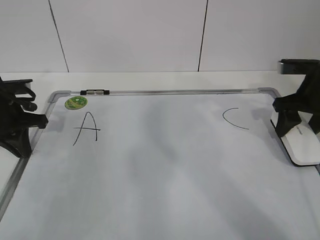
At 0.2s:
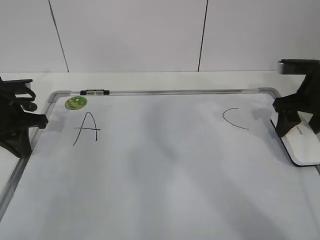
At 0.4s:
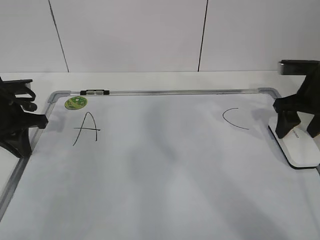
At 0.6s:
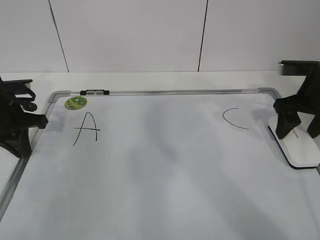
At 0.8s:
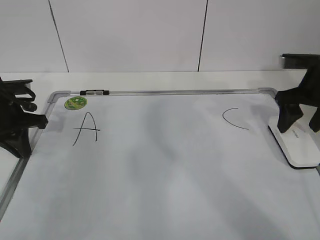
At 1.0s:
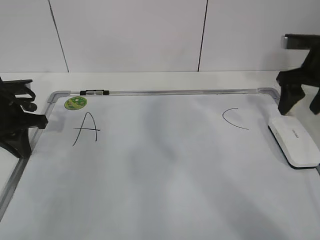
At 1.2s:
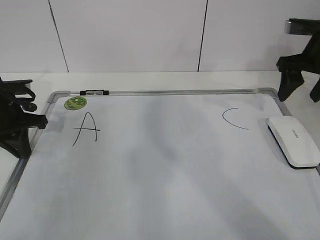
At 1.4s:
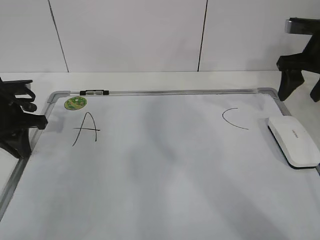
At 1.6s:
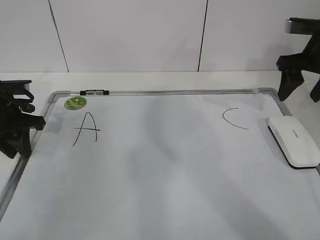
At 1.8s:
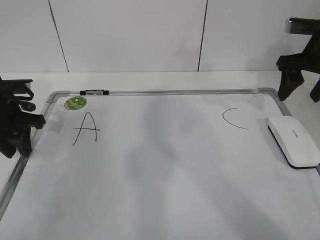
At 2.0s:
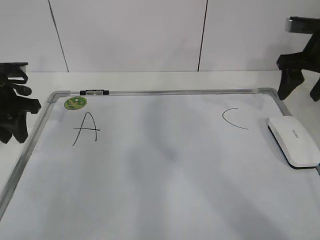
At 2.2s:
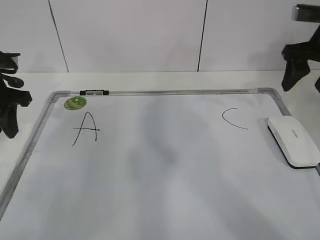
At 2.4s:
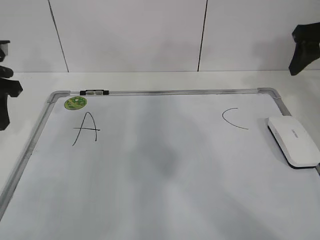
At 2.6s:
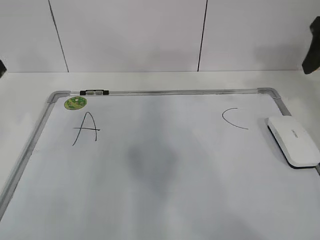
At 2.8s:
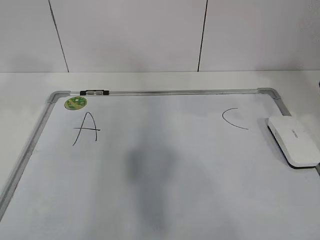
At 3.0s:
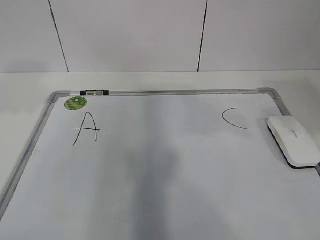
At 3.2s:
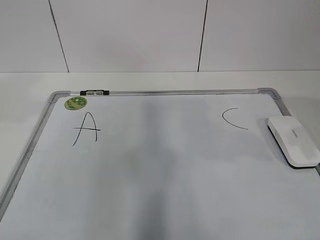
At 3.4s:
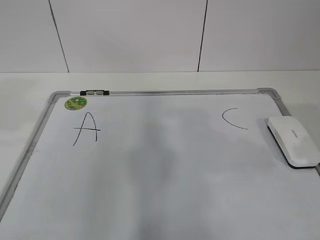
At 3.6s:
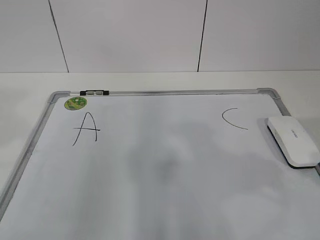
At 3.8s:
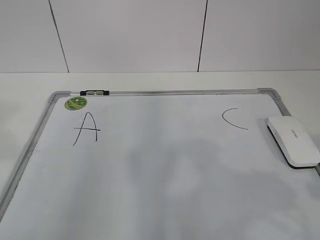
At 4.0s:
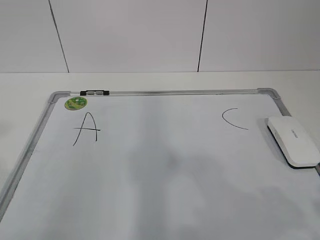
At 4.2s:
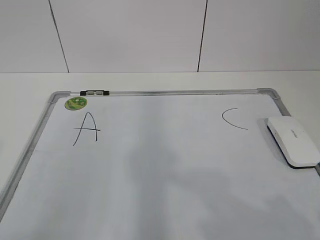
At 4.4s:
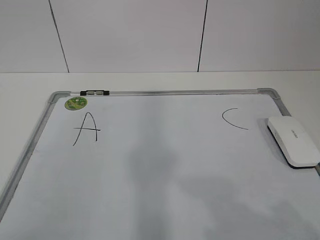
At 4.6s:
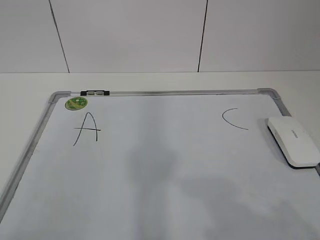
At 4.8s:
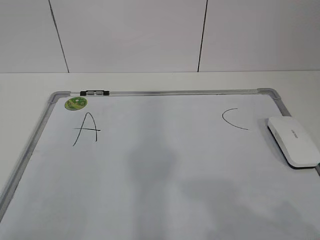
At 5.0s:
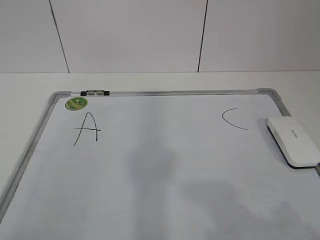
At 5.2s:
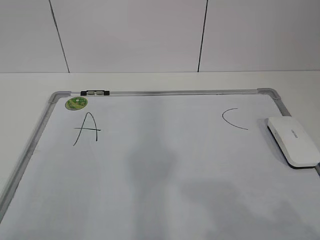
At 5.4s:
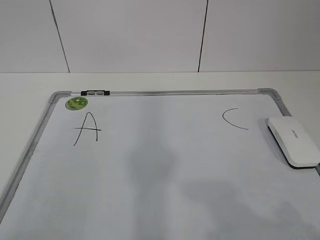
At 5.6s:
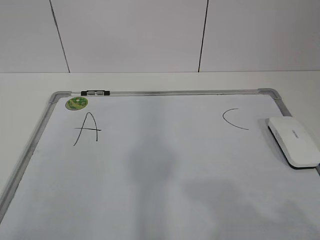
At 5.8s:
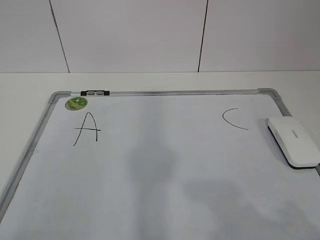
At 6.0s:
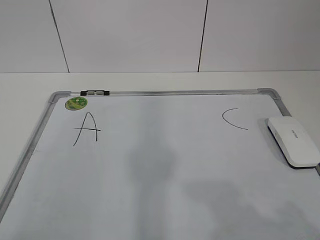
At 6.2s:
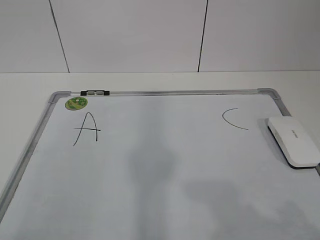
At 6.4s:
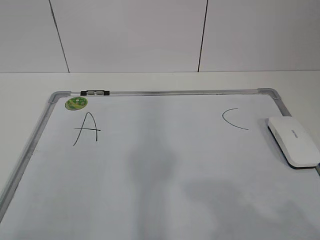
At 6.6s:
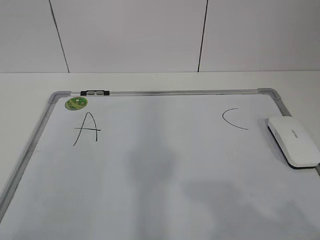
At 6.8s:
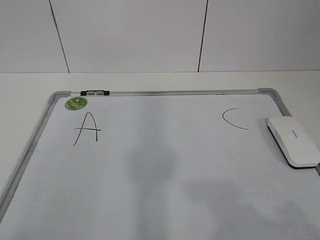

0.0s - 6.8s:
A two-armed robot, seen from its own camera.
Task of the whole recording: pick up the eraser on the blackboard and erase the letter "B".
0.0s - 1.4s: The right gripper goes some 5 cm upward, and opens up.
1.4s - 2.8s: The left gripper travels upward by some 20 cm, and opens its fingers. Meanwhile the right gripper goes roughly 15 cm backward and upward.
2.8s - 4.0s: The grippers both shift backward by some 25 cm.
5.4s - 6.8s: Neither gripper changes place.

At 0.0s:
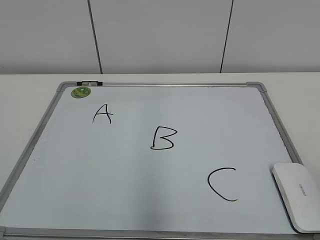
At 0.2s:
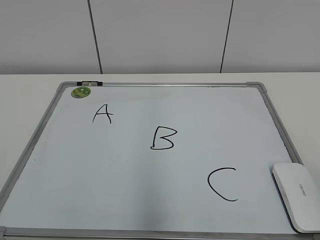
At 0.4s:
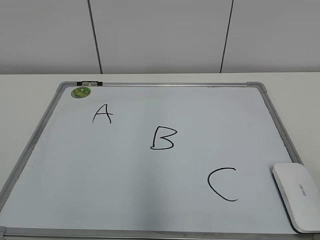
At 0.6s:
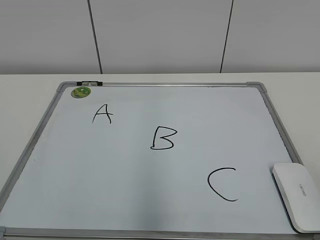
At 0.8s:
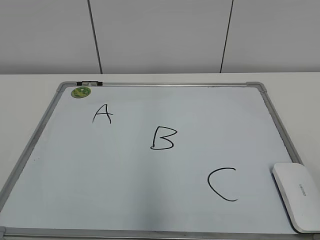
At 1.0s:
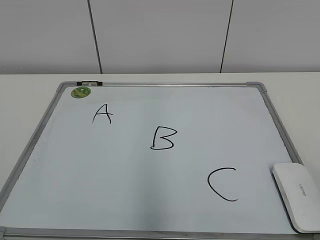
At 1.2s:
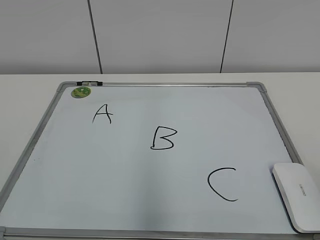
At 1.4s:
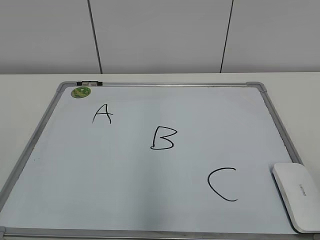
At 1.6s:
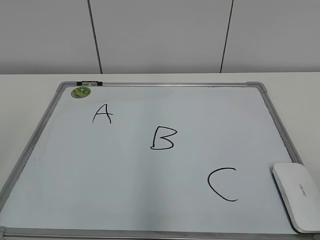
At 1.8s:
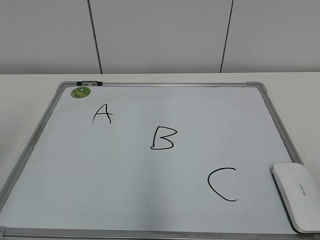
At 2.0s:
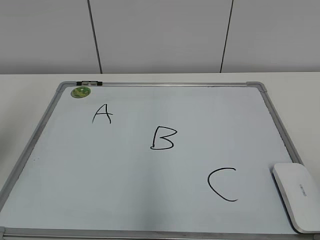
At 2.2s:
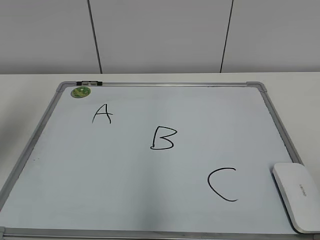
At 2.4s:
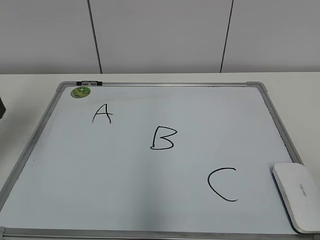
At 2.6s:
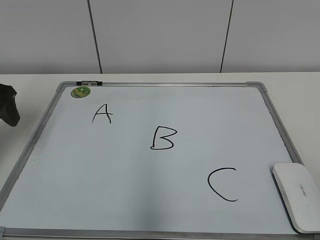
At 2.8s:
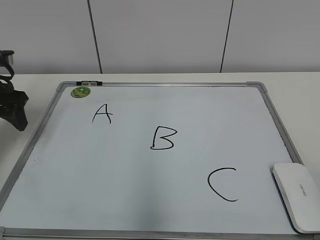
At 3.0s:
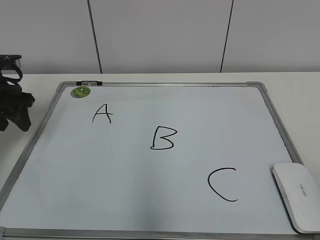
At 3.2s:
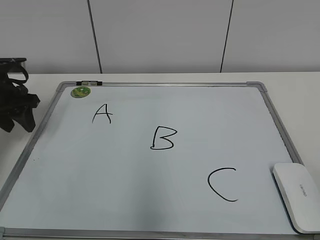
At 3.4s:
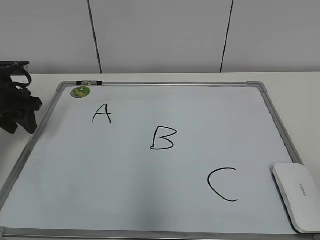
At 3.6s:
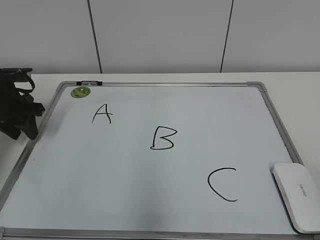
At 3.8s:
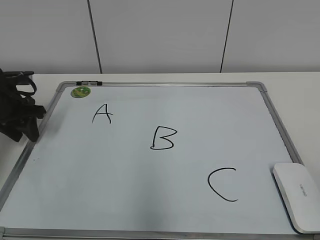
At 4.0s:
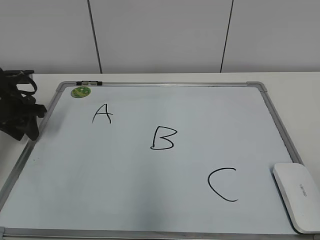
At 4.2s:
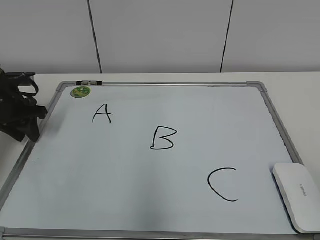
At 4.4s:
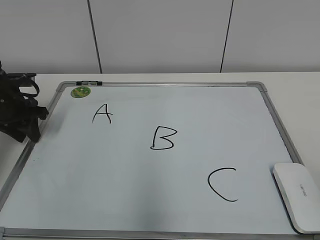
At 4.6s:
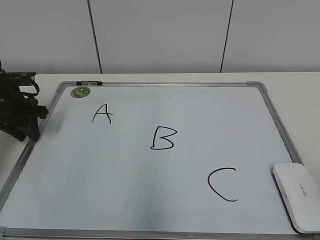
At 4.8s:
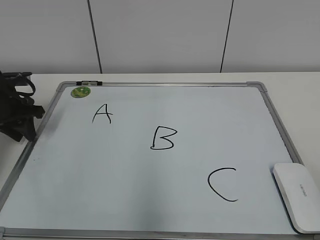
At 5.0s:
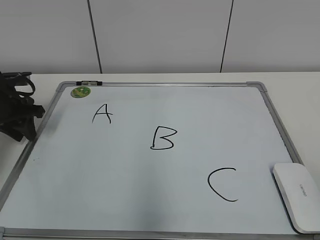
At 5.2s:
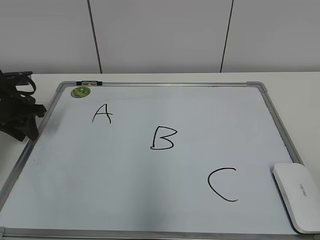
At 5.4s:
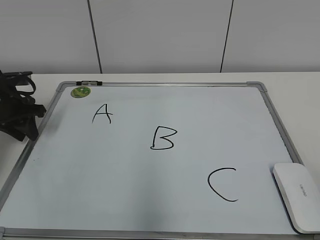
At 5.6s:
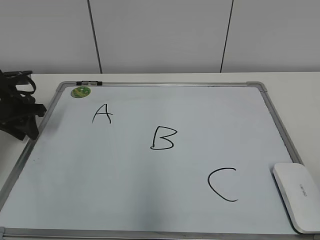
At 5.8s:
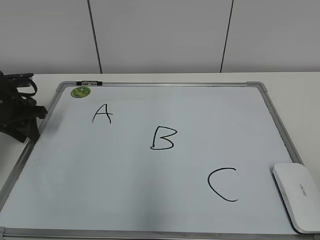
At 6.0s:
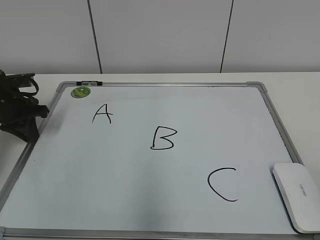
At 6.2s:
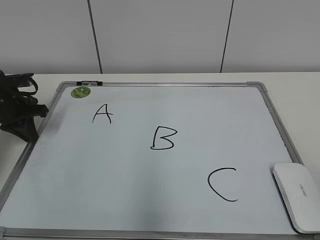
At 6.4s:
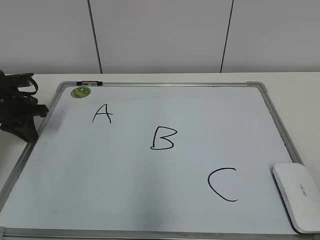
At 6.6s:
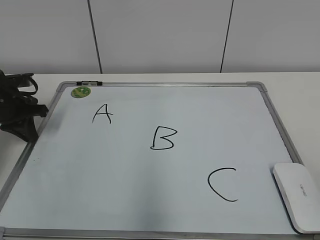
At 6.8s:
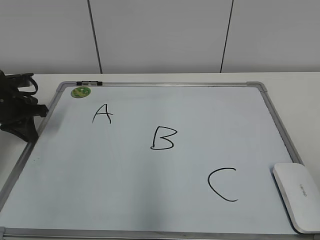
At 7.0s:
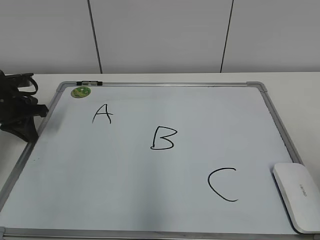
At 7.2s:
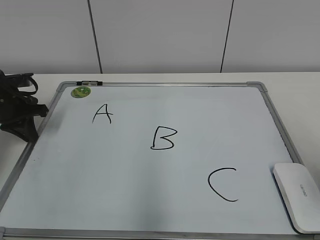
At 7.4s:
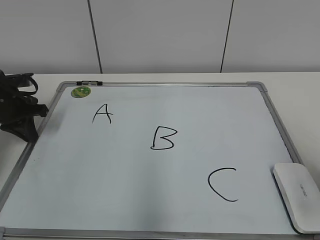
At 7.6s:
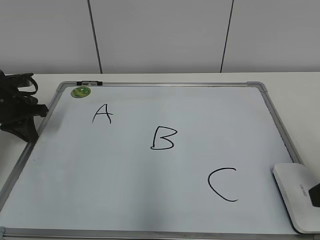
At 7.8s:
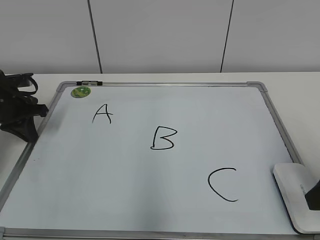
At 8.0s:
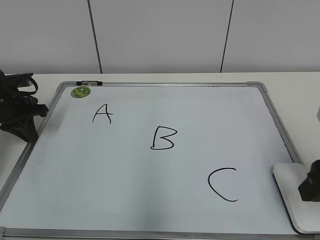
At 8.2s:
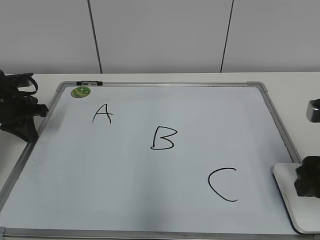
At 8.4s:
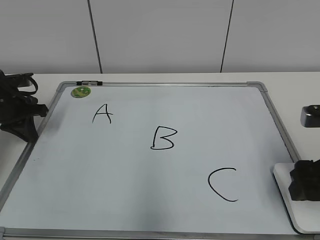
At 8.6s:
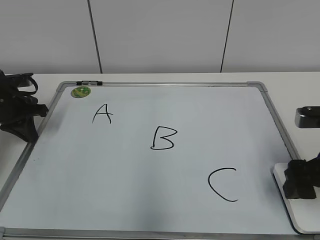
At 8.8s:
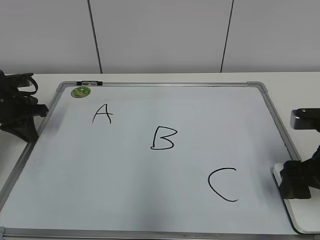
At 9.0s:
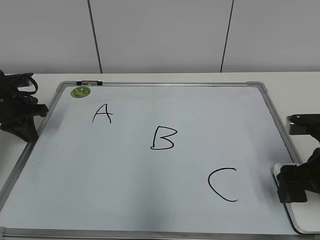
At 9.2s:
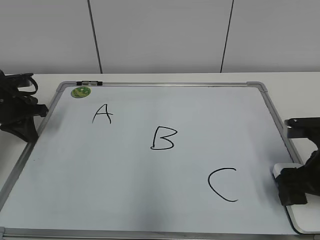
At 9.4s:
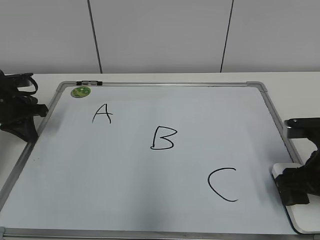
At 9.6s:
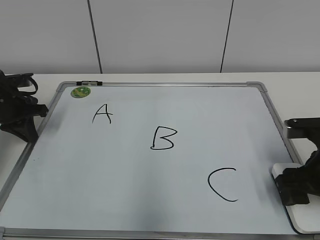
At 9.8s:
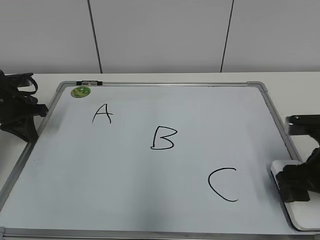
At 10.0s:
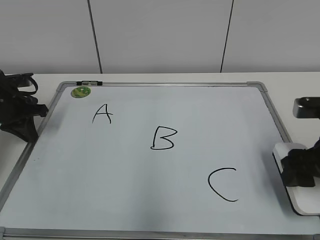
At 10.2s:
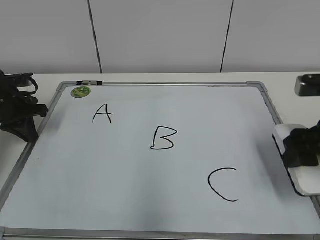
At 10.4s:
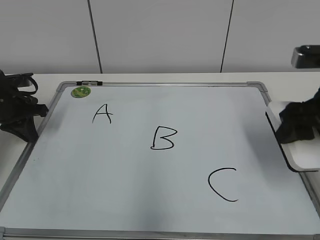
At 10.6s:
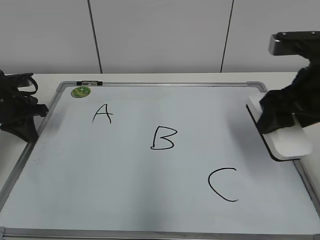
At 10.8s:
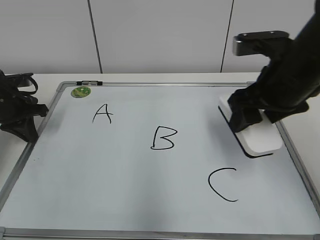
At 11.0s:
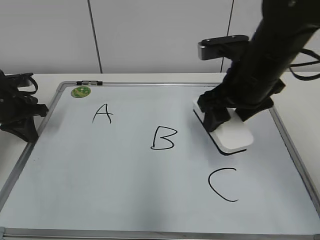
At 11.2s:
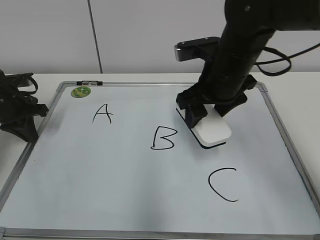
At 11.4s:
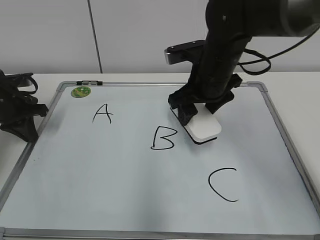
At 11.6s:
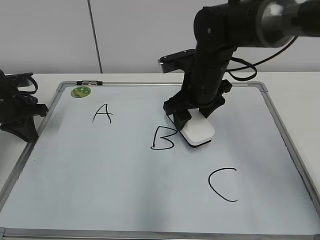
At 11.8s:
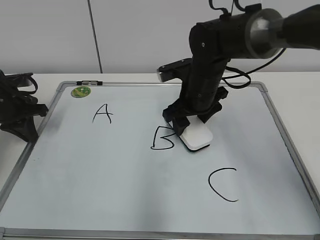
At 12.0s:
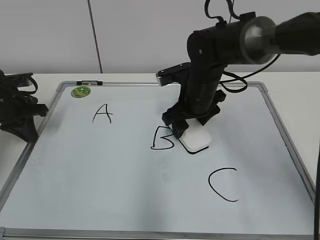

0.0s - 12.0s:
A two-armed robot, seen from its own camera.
Task of the whole recording: pick up the eraser on the blackboard and erase the letter "B".
Step, 0.0s - 6.0s: Hold the drawing board steady with your left hand.
Step, 6.2s - 9.4s: Grab the eraser with your right hand.
1.6s - 3.0s: The left gripper goes about 35 cm forward and downward, and closes its fingers.
3.0s - 4.4s: The left gripper is displaced downward by some 5 cm.
4.4s - 6.0s: Both grippers stay about where they are.
6.0s - 7.6s: The right gripper shifts about 15 cm forward.
7.6s - 9.0s: The right gripper moves downward and forward, about 10 cm, and opens.
9.0s - 10.4s: The right gripper is displaced upward by some 10 cm, and closes its fingers.
10.4s - 12.0s: The right gripper goes approximately 25 cm to the left, forward and downward.

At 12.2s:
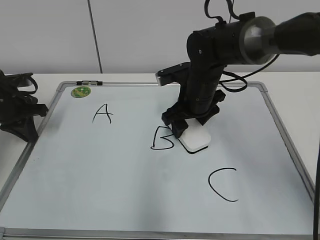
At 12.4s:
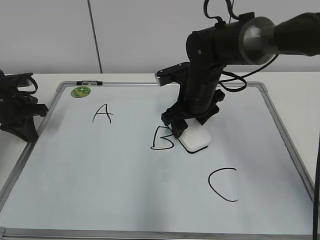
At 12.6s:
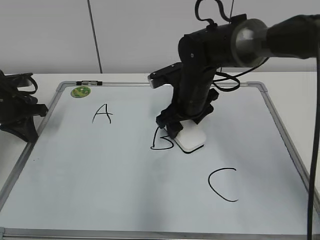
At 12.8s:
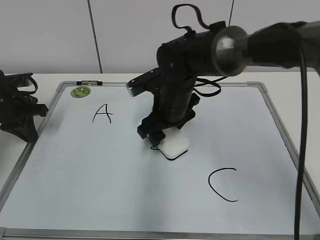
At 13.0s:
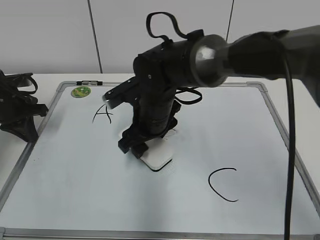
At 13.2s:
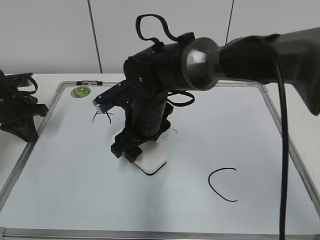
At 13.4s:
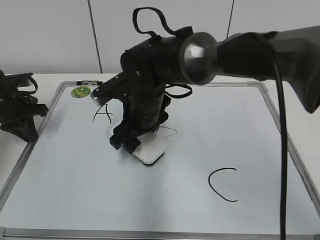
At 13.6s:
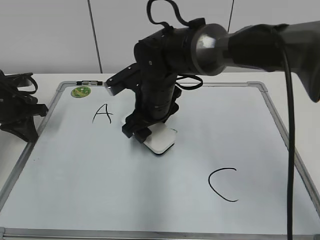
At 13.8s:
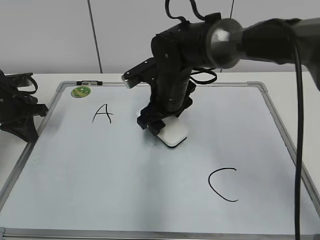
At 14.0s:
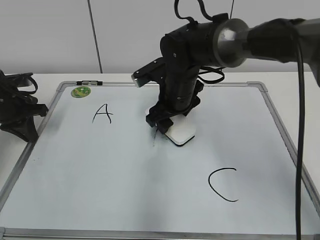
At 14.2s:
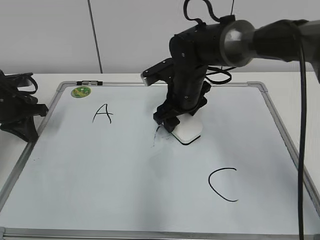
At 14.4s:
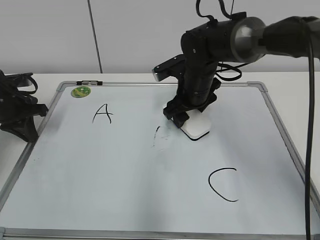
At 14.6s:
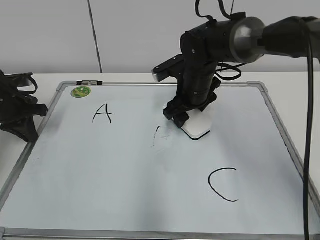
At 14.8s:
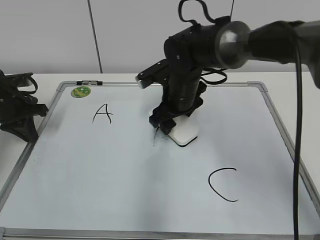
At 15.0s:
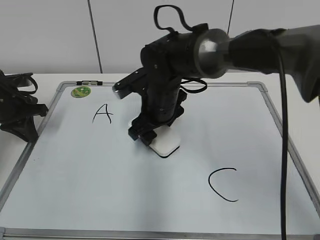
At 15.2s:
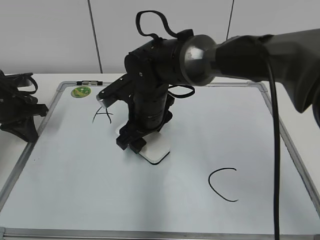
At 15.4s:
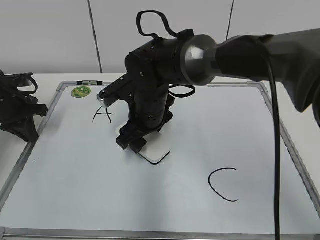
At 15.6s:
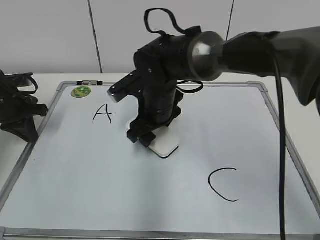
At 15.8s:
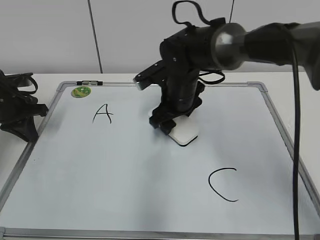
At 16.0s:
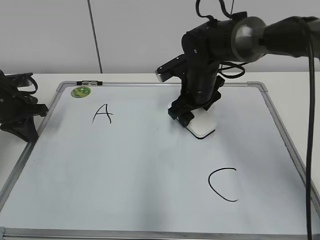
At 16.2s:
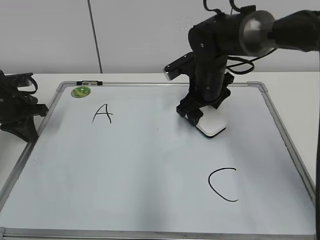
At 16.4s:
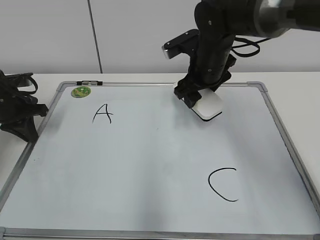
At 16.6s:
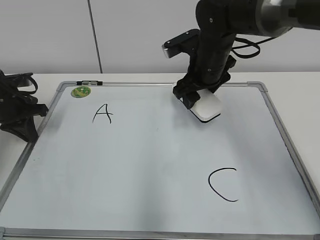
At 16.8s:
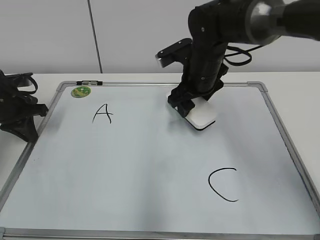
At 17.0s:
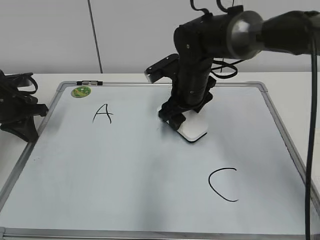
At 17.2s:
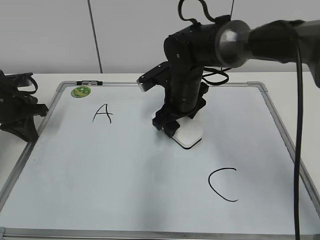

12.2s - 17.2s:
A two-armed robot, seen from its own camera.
Task of the whole recording: pick up the eraser on the blackboard and erase the letter "B".
12.2s - 13.8s: The right gripper moves to the left, roughly 5 cm.
13.8s - 15.6s: The right gripper reaches roughly 5 cm to the right, then returns.
15.6s - 17.2s: The right gripper is displaced to the right by about 5 cm.
